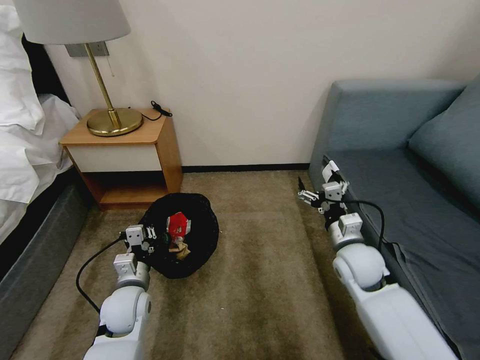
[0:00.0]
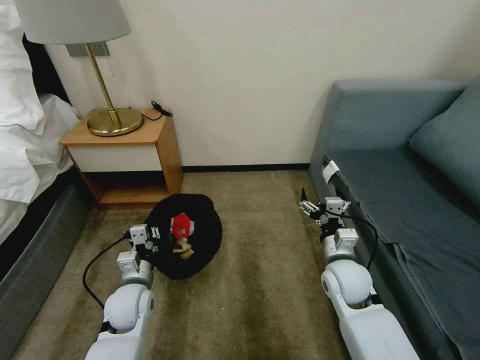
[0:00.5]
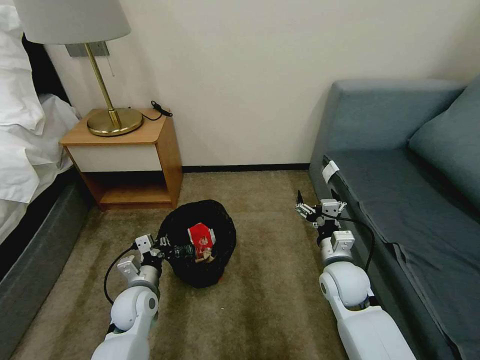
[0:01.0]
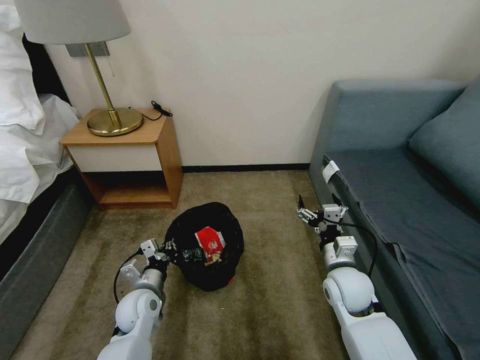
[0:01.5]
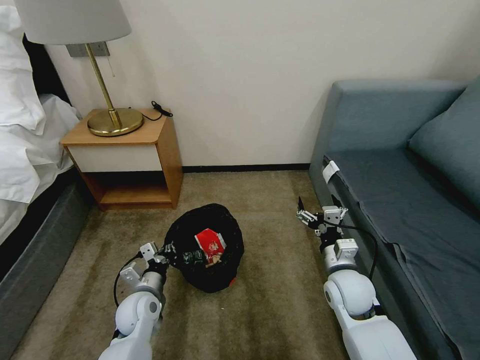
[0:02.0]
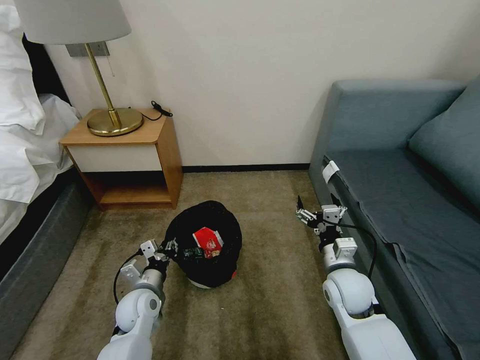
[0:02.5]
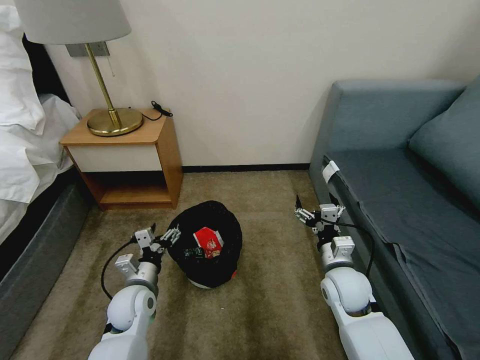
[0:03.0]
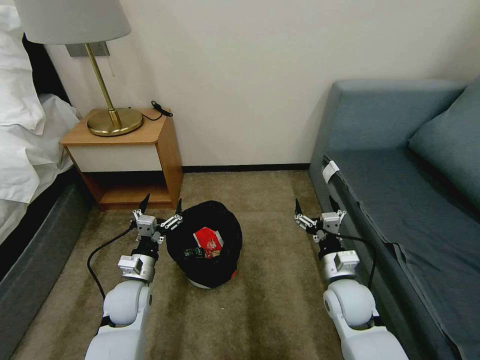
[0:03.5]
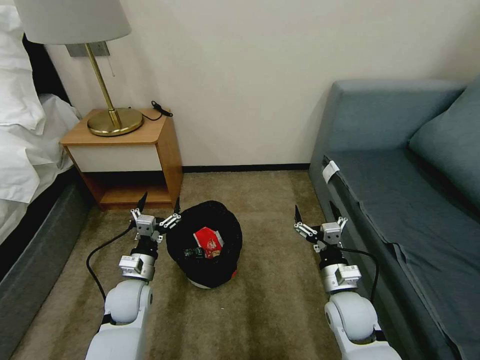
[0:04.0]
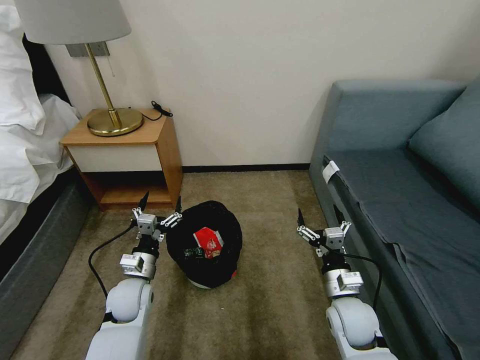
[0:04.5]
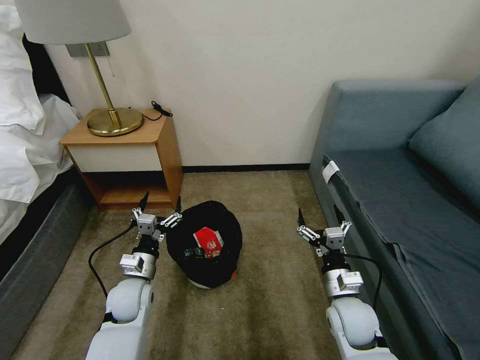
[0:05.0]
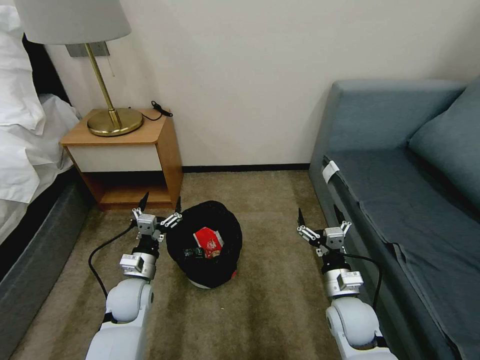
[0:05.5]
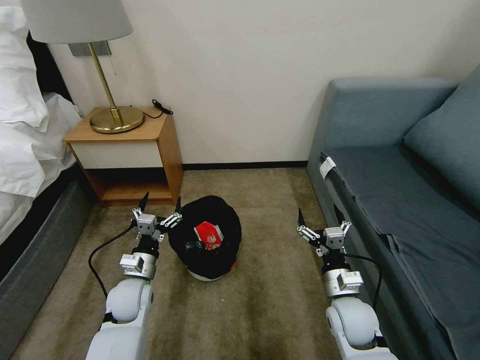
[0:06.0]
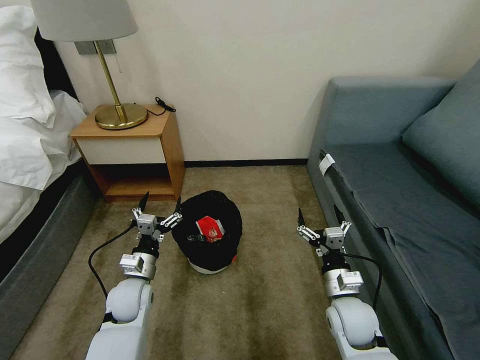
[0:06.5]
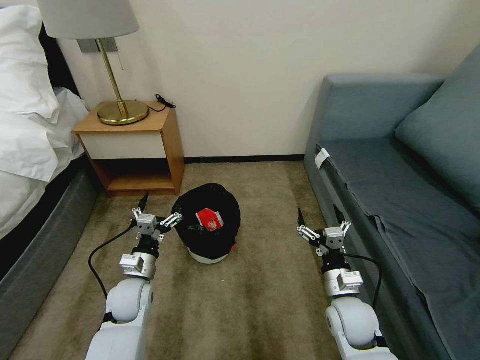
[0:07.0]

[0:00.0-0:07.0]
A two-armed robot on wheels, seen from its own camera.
Task of the whole recording: Pick up the trash bin, then pick up the garbage on the floor and place it into the trash bin.
0:00.0 to 0:02.0: The left gripper moves downward, some 5 cm, while the right gripper ends up roughly 5 cm from where it was.
0:02.0 to 0:03.5: The left gripper opens.
0:03.5 to 0:05.0: The grippers make only small movements.
0:05.0 to 0:07.0: Neither gripper changes place.

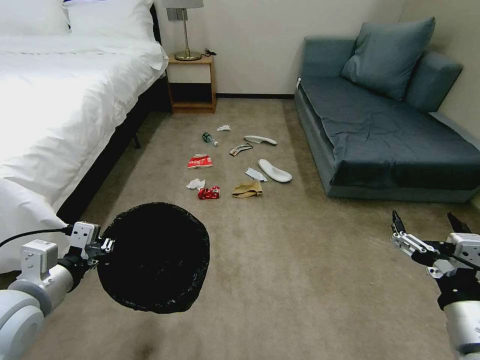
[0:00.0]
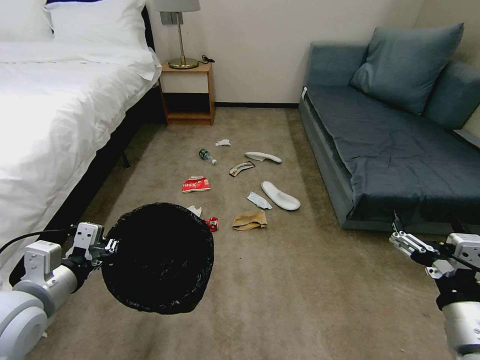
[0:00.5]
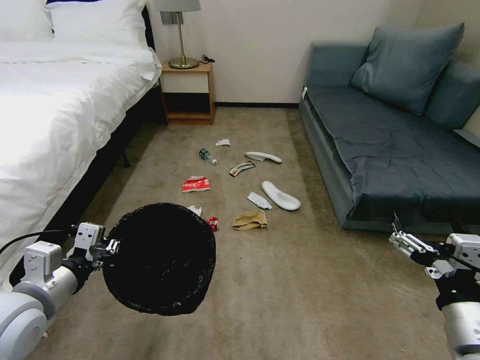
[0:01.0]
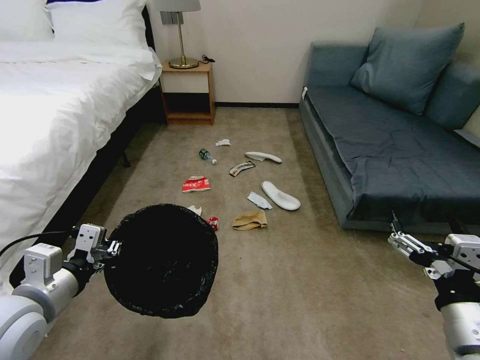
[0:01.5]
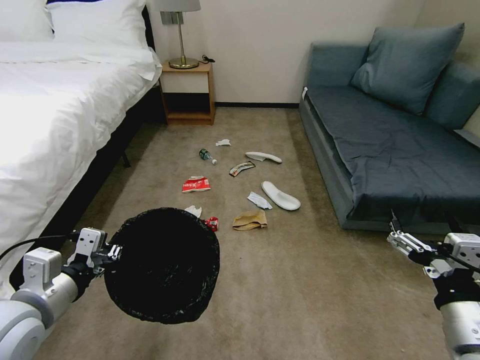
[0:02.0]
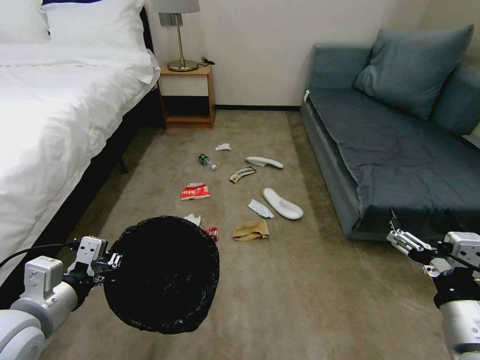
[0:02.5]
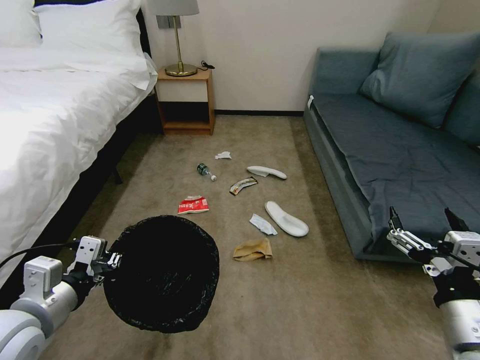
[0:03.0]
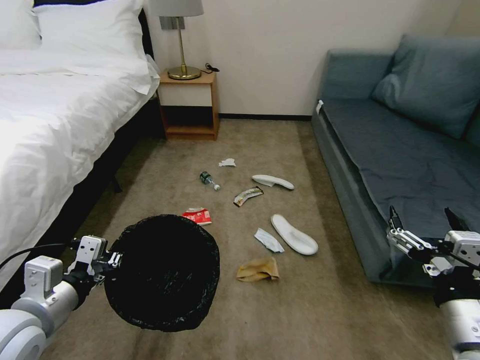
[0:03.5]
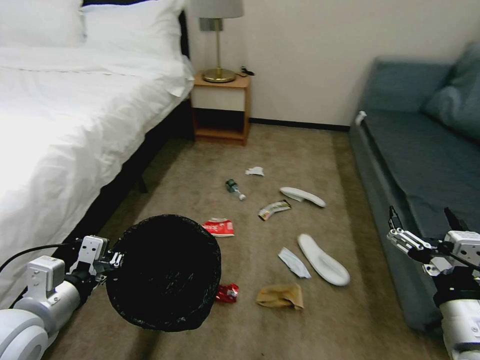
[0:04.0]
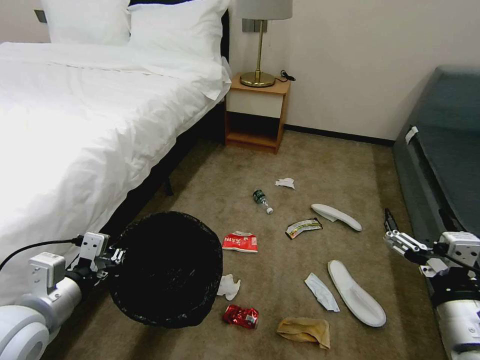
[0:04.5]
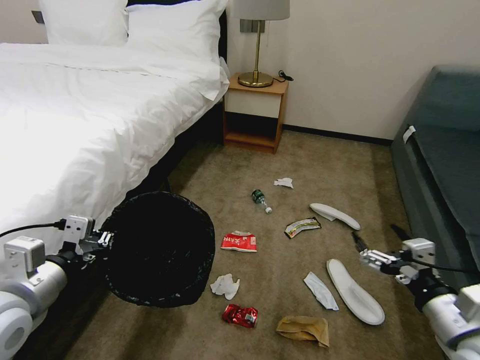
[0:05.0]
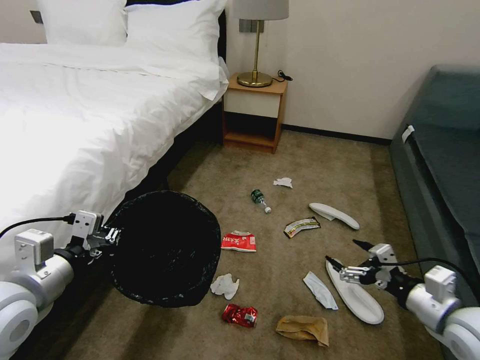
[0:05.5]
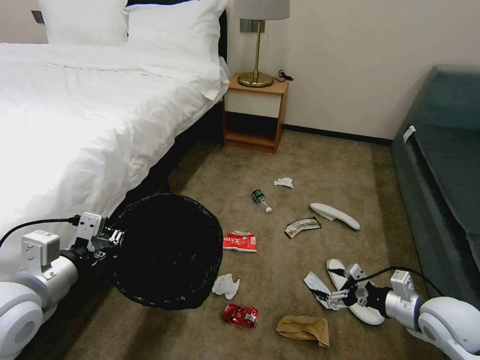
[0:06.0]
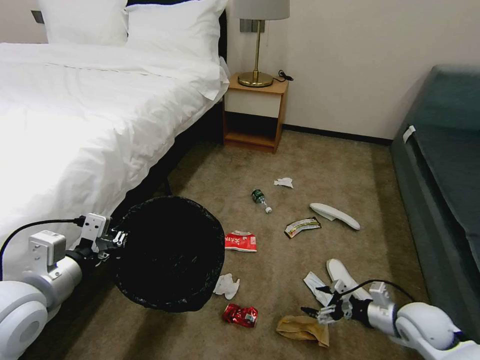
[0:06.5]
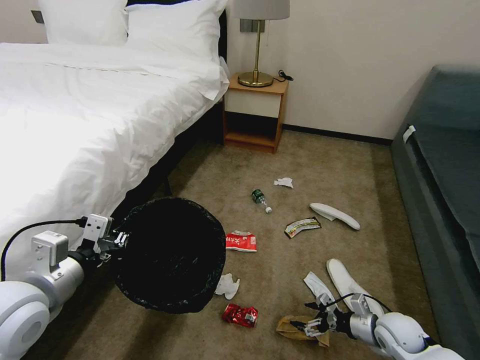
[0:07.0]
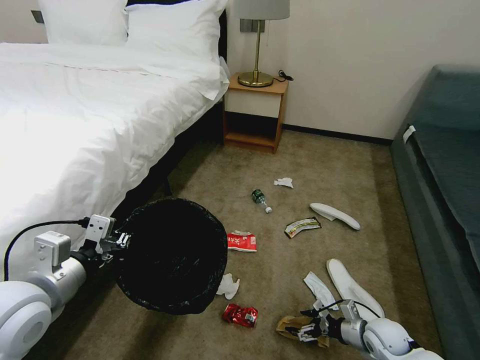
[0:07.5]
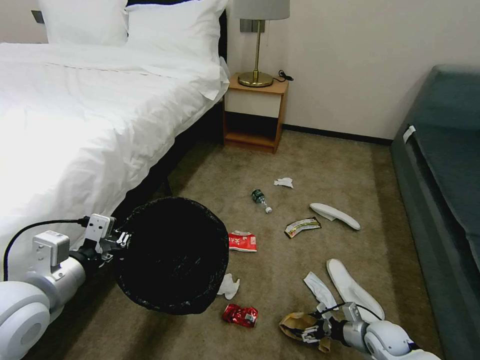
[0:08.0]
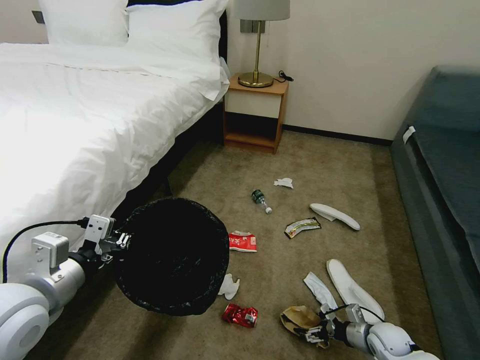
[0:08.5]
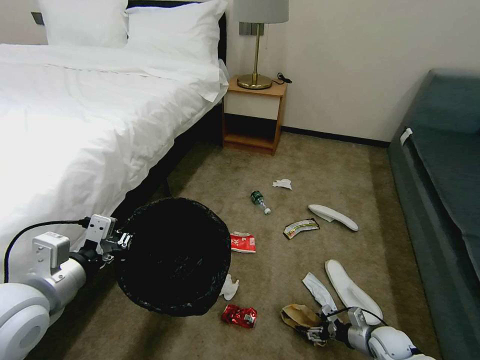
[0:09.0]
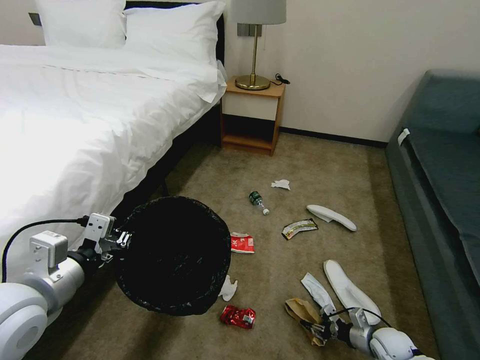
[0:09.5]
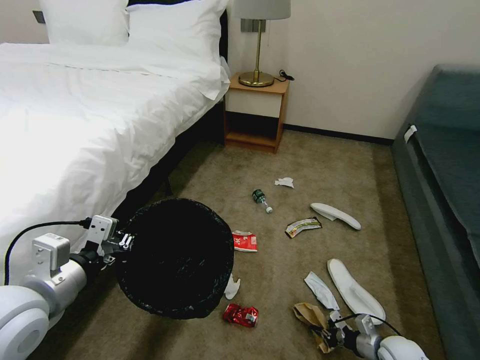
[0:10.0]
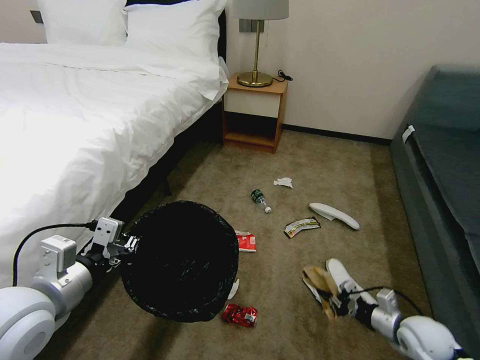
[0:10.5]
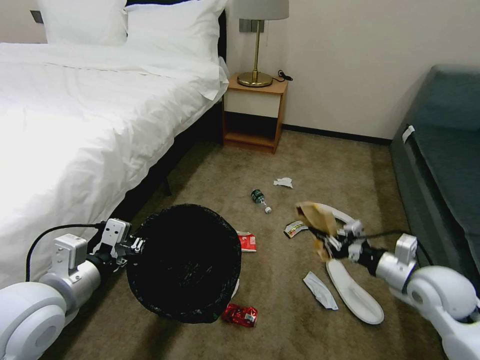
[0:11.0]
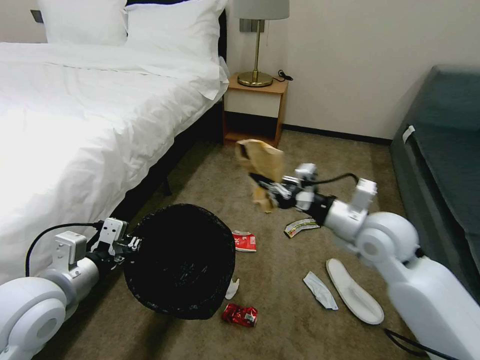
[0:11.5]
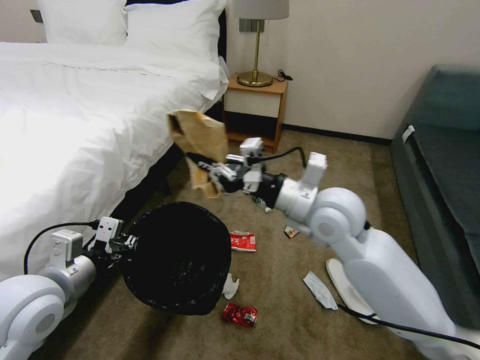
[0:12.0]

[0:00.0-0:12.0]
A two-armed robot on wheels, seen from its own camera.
Task of the whole recording: Pick up the trash bin, then pick up the garbage on the floor and place it into the trash bin.
0:04.0 to 0:06.0: The left gripper closes its fingers, while the right gripper heads downward, forward and to the right, covering about 20 cm.
0:06.0 to 0:08.0: The right gripper travels downward by about 20 cm.
0:08.0 to 0:10.0: The right gripper closes.
0:10.0 to 0:12.0: The right gripper travels upward and to the left by some 50 cm.

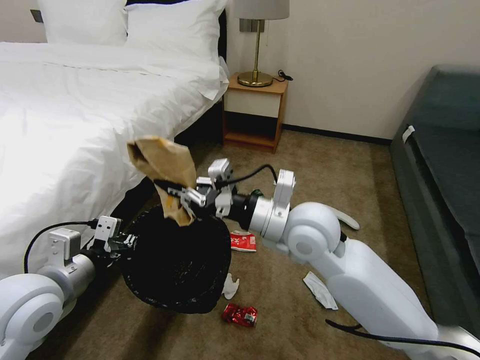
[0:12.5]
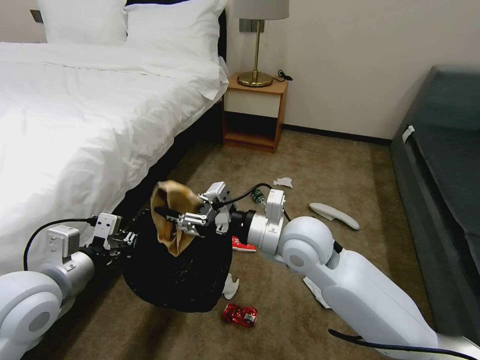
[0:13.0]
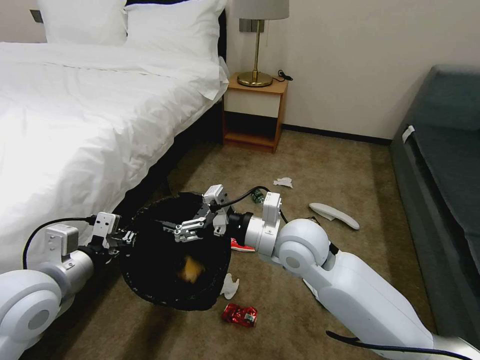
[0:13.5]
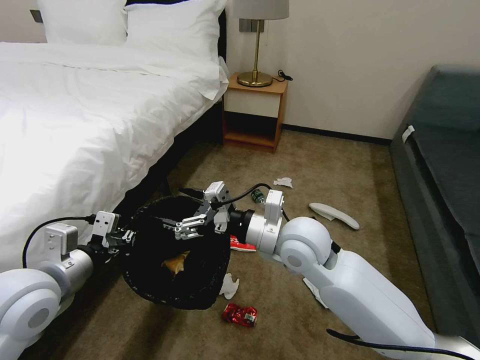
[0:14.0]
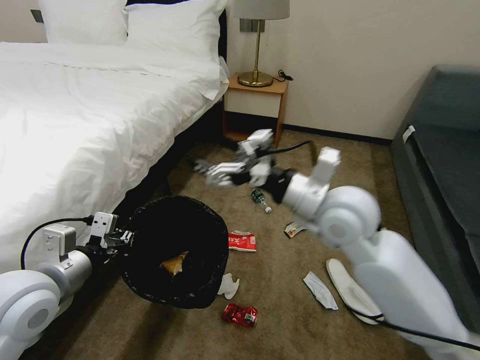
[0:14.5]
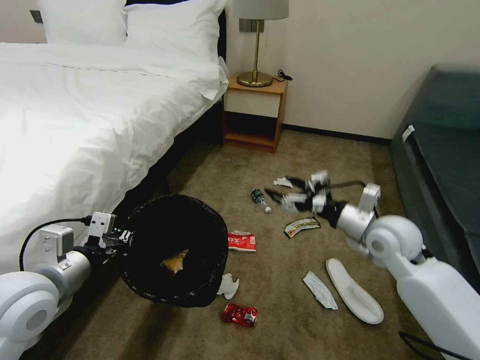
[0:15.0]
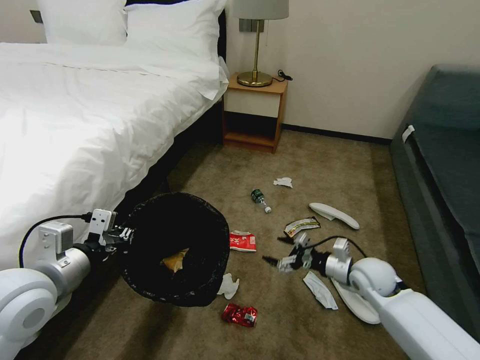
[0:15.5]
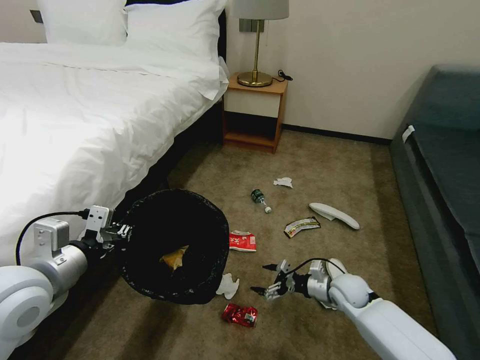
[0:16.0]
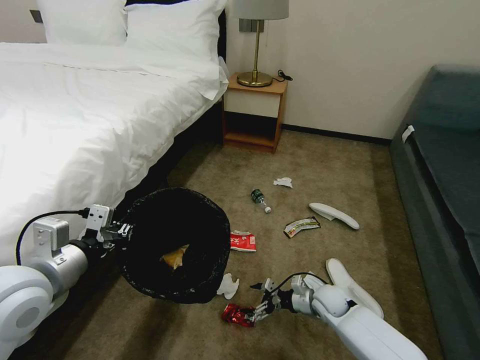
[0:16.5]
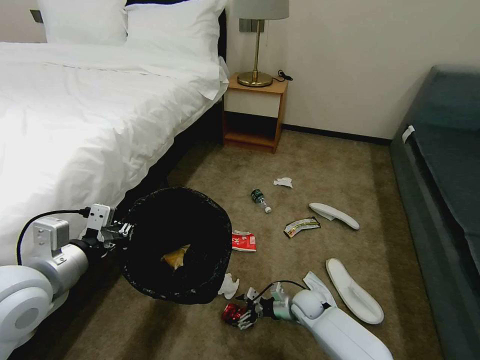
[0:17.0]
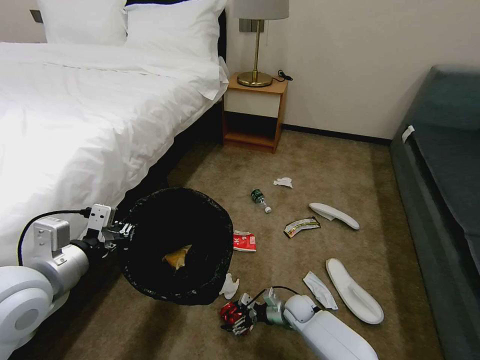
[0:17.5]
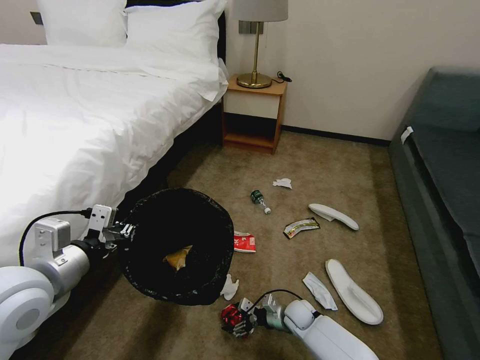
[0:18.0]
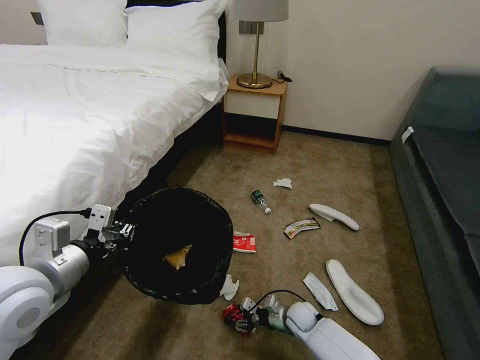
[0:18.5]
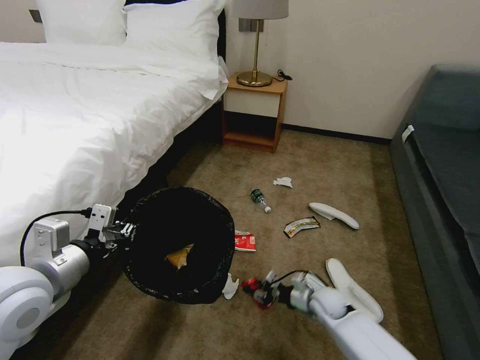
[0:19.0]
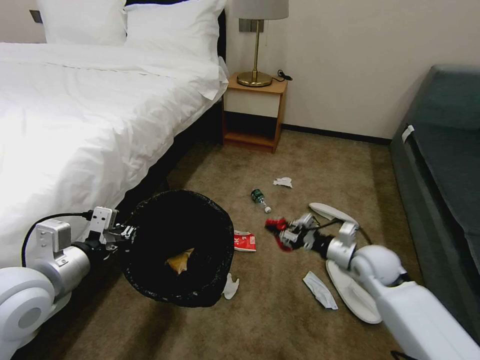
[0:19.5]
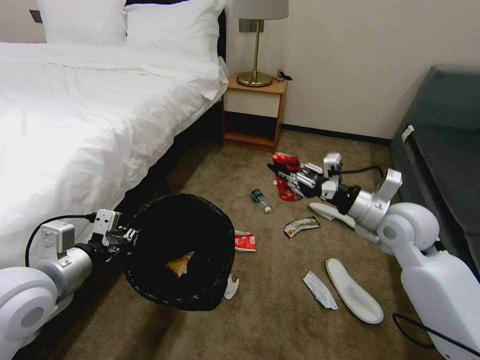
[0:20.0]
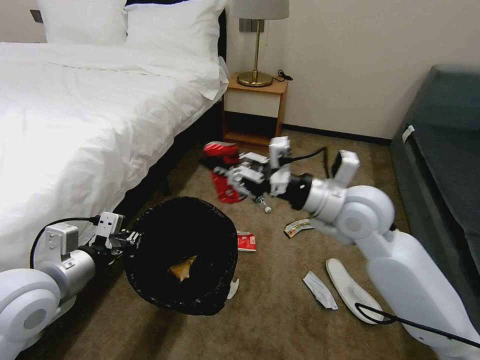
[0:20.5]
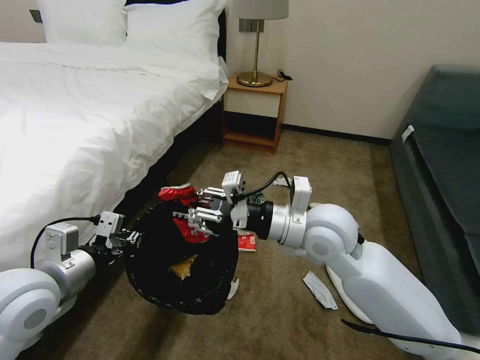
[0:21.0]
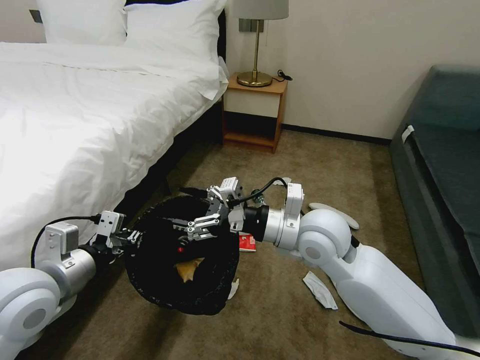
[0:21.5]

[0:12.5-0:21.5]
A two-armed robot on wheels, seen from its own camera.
Task of the whole recording: Pick up the trash bin, then pick up the garbage on the floor and place it into the trash bin.
0:12.5 to 0:14.5: The right gripper is displaced to the right by some 5 cm, and opens its fingers.
0:14.5 to 0:17.0: The right gripper goes some 40 cm downward.
0:17.0 to 0:19.5: The right gripper goes some 25 cm upward and to the right, and closes.
0:19.5 to 0:21.5: The right gripper travels to the left and upward by approximately 25 cm, and opens its fingers.
